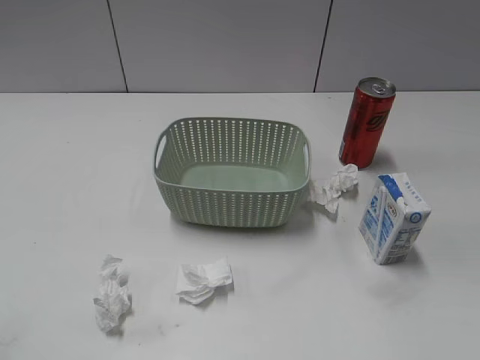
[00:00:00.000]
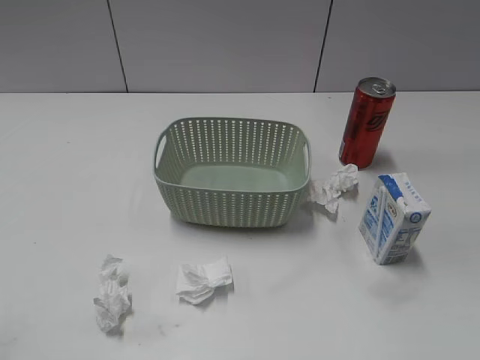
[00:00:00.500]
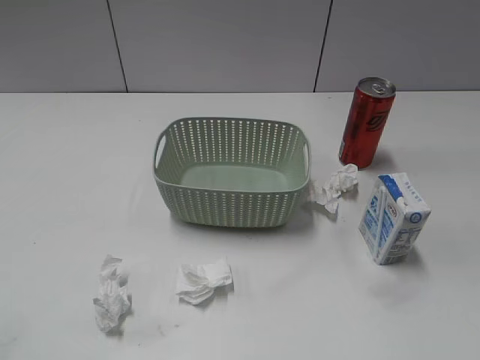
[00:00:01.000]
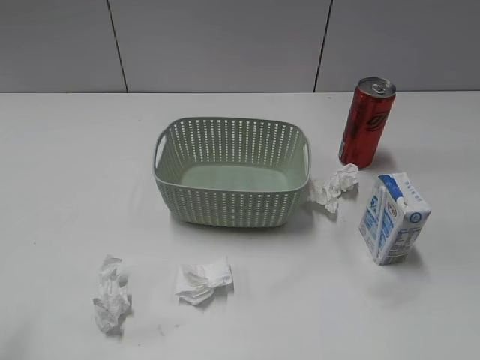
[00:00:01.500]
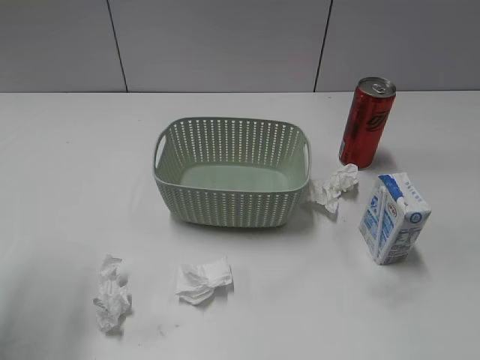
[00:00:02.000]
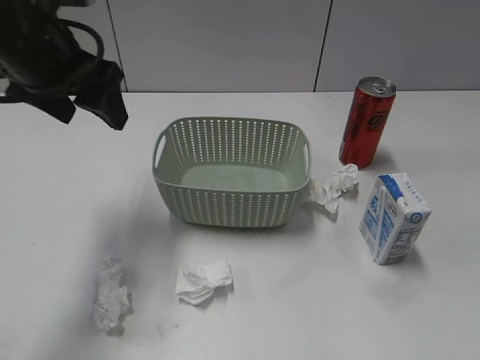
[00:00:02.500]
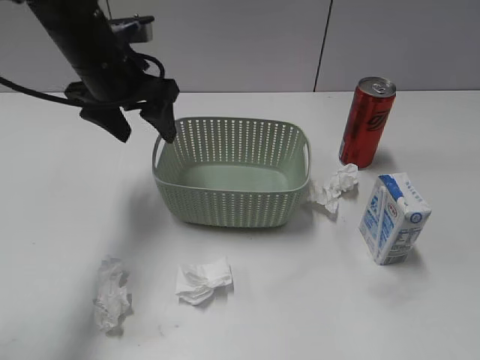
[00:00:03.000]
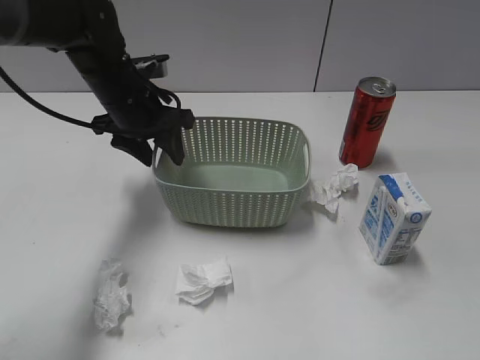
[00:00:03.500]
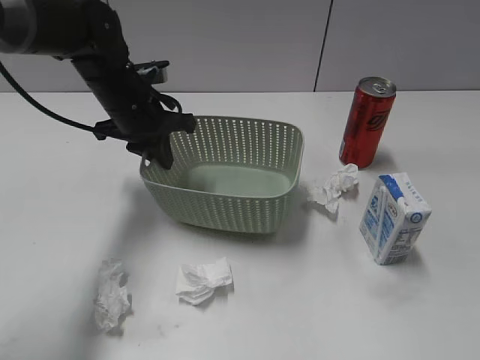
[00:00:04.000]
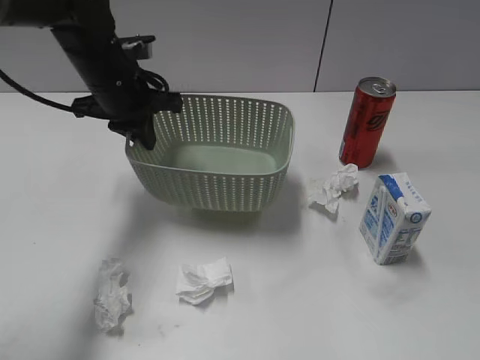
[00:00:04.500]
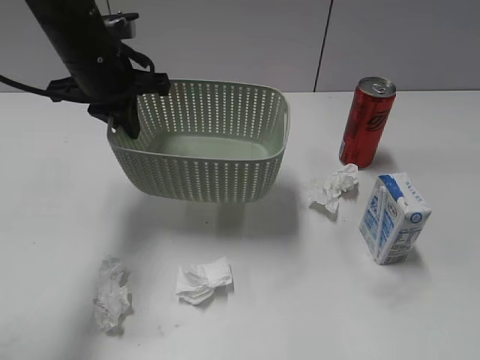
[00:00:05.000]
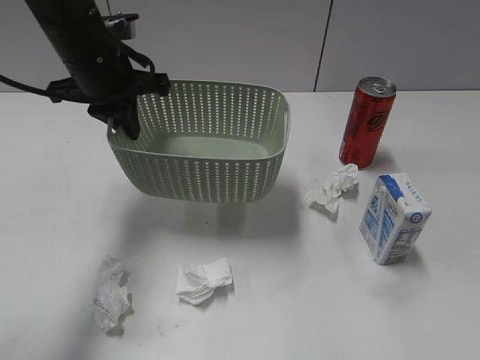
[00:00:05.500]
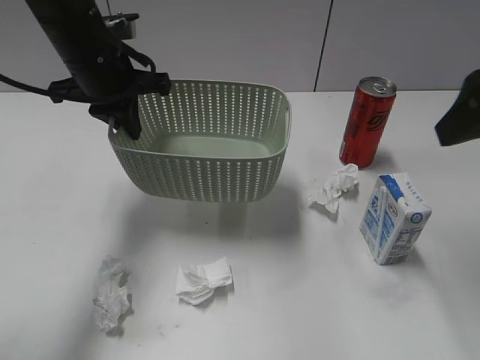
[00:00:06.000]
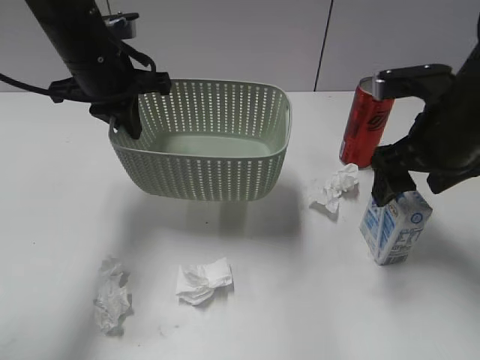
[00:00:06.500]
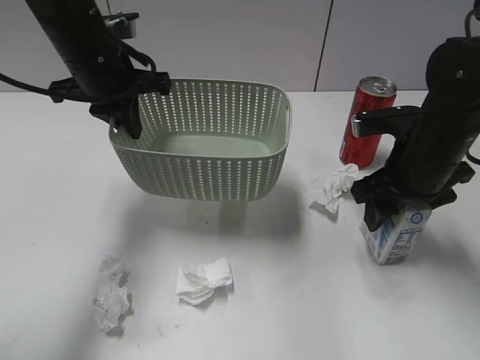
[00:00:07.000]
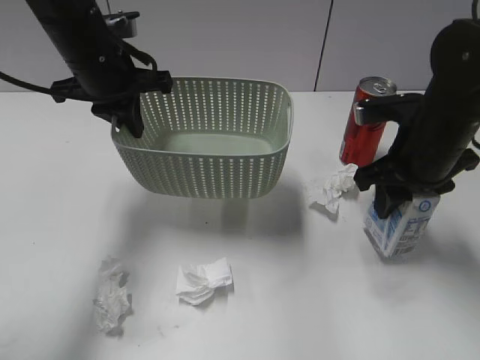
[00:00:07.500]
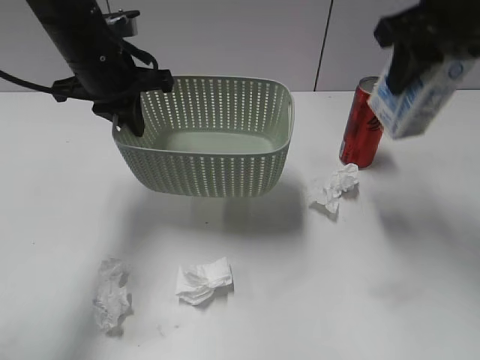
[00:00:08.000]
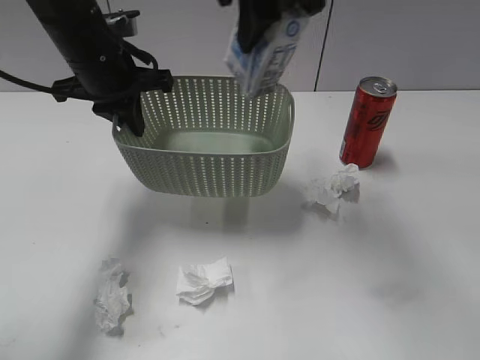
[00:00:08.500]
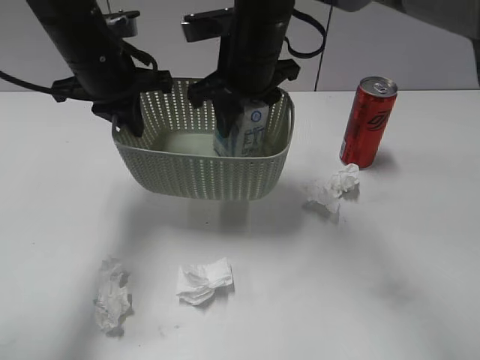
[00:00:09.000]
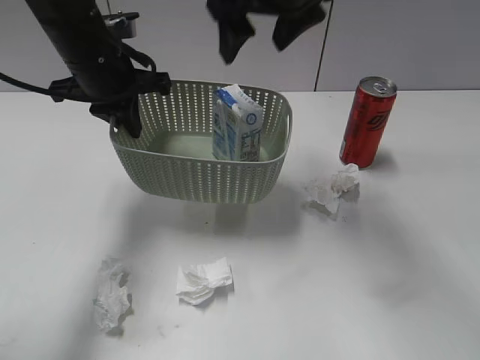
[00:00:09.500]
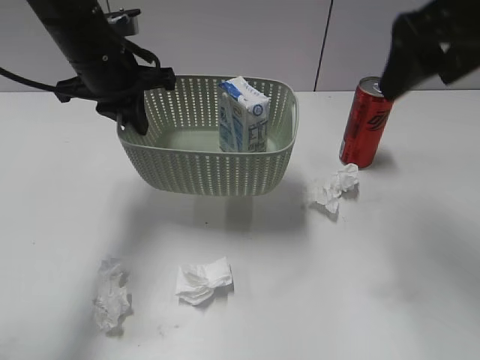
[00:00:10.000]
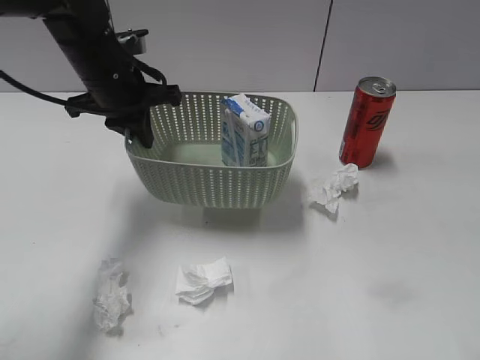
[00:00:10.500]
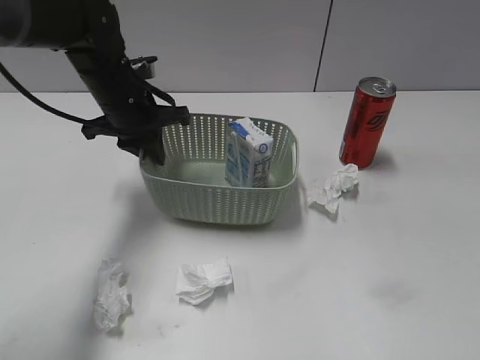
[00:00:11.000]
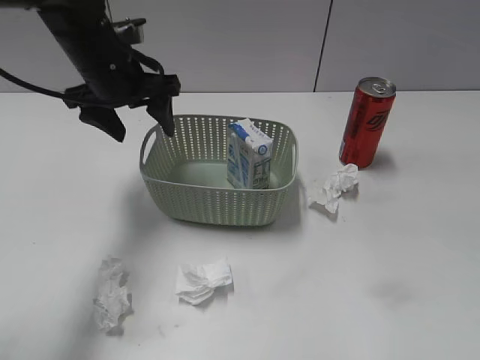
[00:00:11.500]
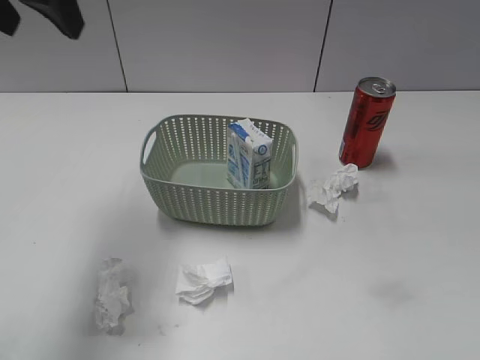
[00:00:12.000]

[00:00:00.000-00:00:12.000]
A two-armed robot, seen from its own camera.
Step, 00:00:02.500 to 00:00:04.000: Grasp the basket with left gripper.
Step, 00:00:04.500 to 00:00:05.000: Lift the basket with left gripper.
Step, 00:00:05.500 to 00:00:07.000: Grasp the milk with right gripper.
Step, 00:00:07.500 to 00:00:09.500: Place the milk in the basket with right gripper.
Step, 00:00:10.000 to 00:00:11.500: Place the basket on the table with left gripper.
00:00:02.000 to 00:00:04.000: The left gripper goes roughly 30 cm forward, to the right and downward, and closes up.
00:00:04.000 to 00:00:06.000: The right gripper goes some 25 cm forward, and opens, while the left gripper moves upward, approximately 5 cm.
00:00:06.000 to 00:00:08.000: The right gripper shifts approximately 10 cm forward and to the left, moves roughly 15 cm downward and comes back, and closes.
00:00:08.000 to 00:00:10.000: The right gripper reaches roughly 20 cm to the left, then returns, and opens.
00:00:10.000 to 00:00:12.000: The left gripper travels upward and backward by some 15 cm, and opens its fingers. Meanwhile the right gripper travels backward and to the right by approximately 25 cm.
